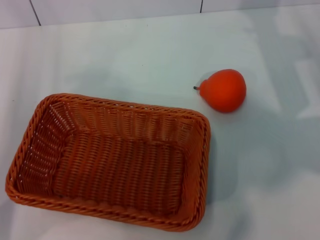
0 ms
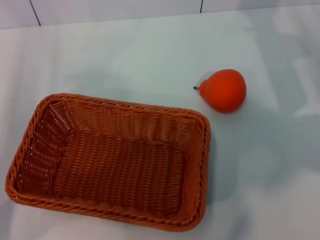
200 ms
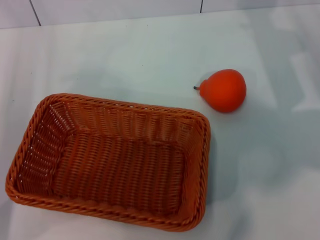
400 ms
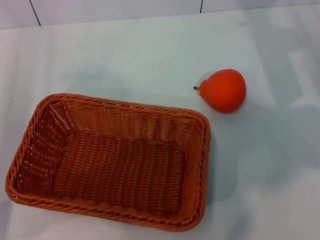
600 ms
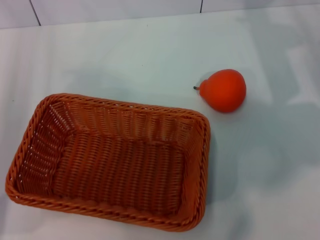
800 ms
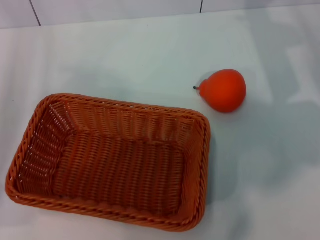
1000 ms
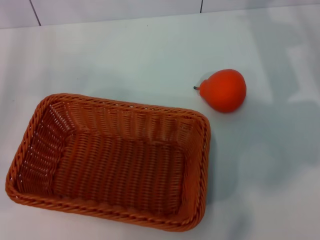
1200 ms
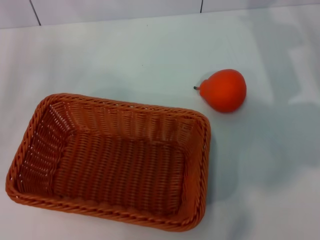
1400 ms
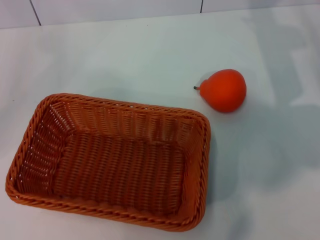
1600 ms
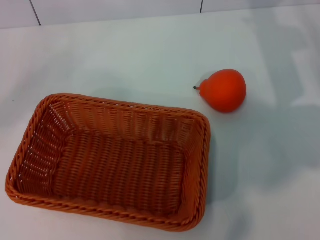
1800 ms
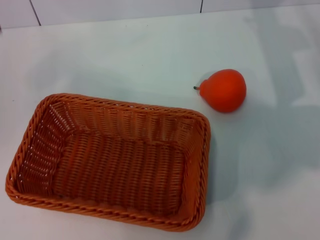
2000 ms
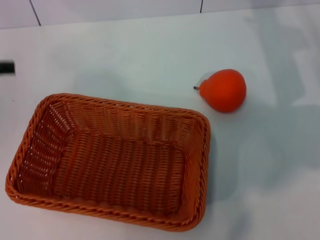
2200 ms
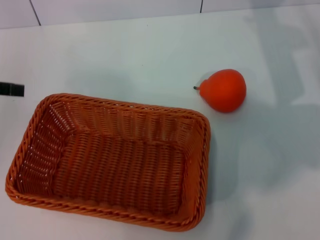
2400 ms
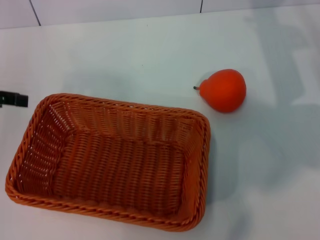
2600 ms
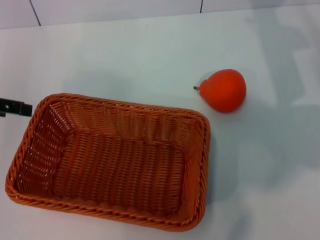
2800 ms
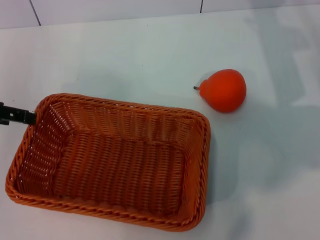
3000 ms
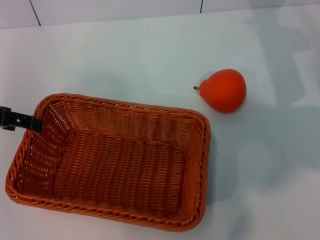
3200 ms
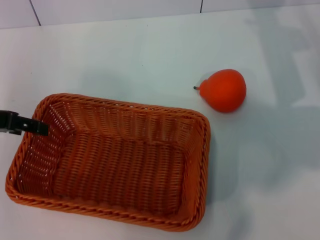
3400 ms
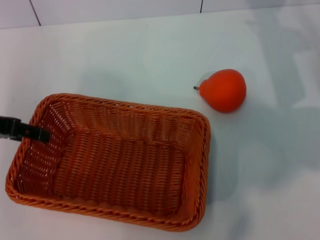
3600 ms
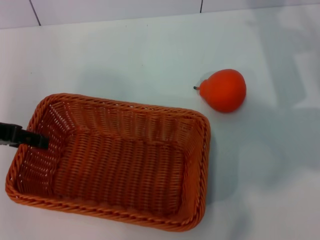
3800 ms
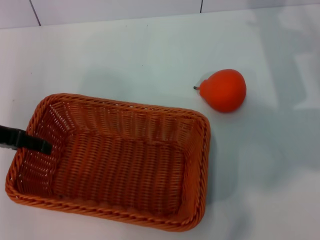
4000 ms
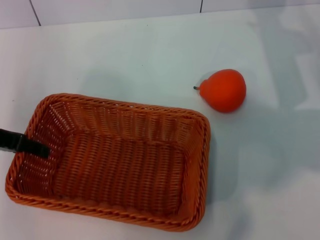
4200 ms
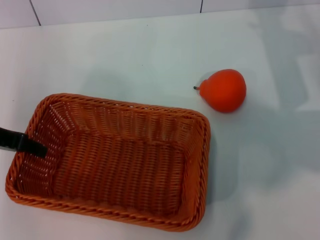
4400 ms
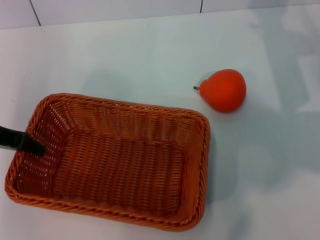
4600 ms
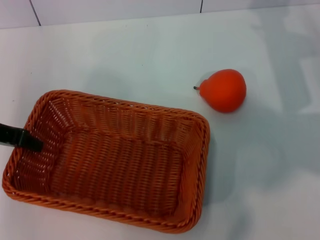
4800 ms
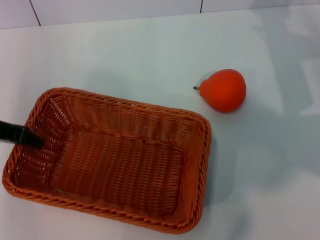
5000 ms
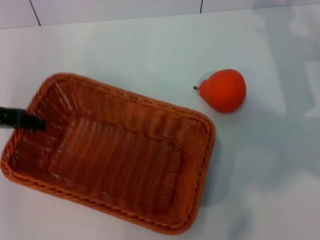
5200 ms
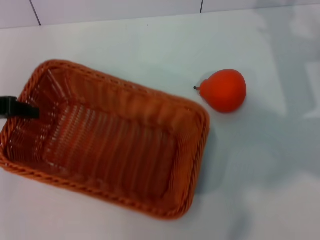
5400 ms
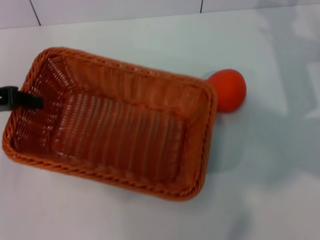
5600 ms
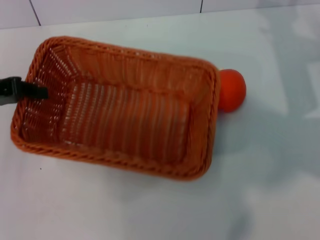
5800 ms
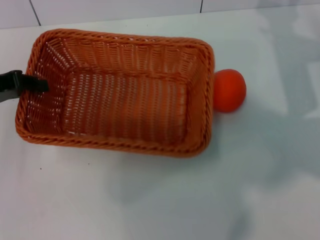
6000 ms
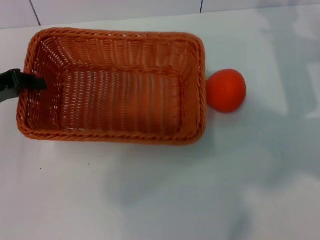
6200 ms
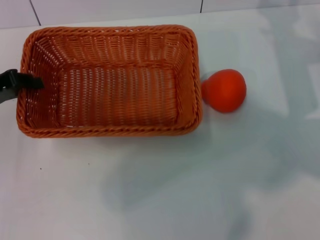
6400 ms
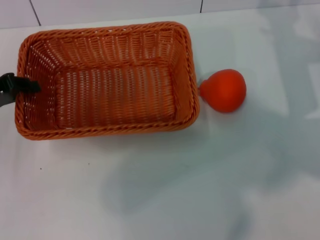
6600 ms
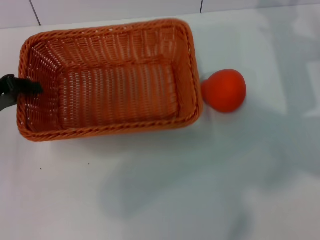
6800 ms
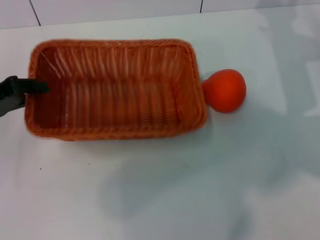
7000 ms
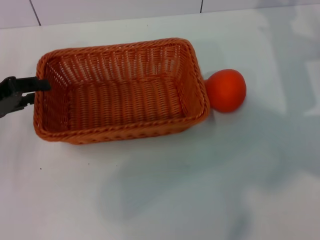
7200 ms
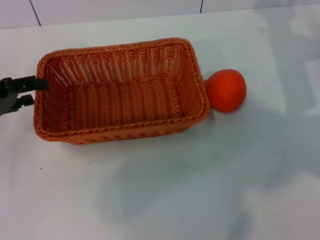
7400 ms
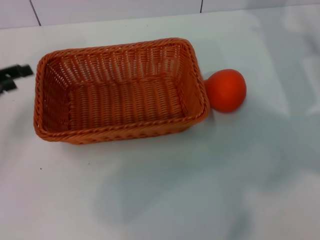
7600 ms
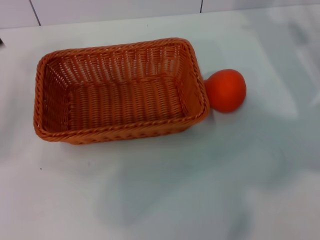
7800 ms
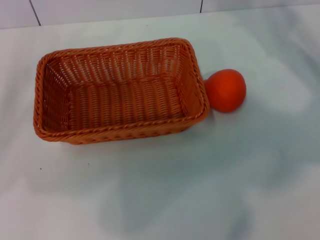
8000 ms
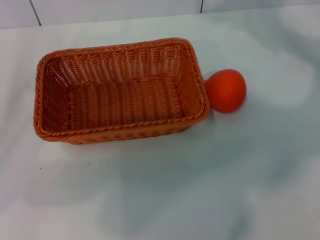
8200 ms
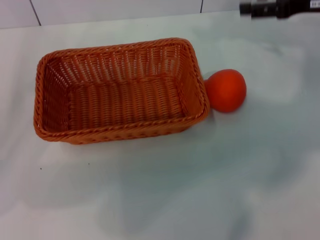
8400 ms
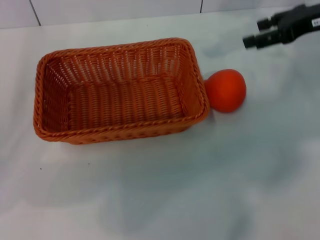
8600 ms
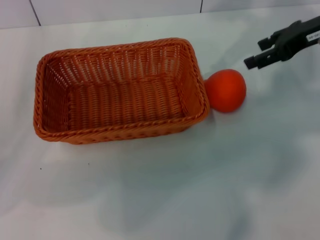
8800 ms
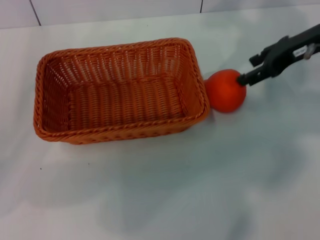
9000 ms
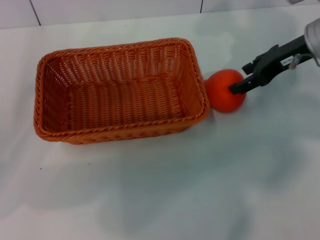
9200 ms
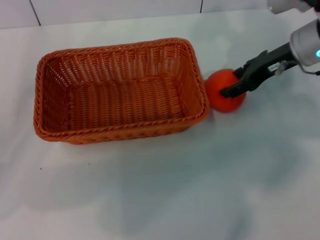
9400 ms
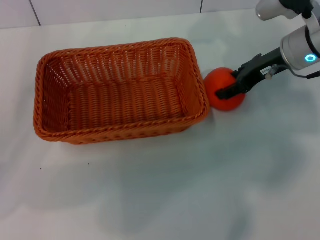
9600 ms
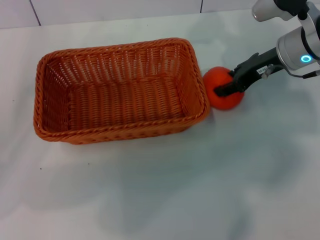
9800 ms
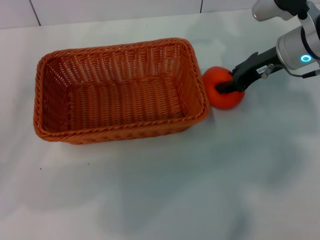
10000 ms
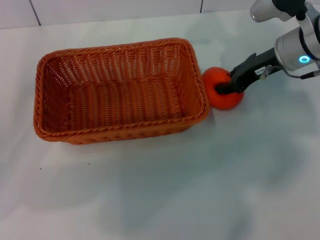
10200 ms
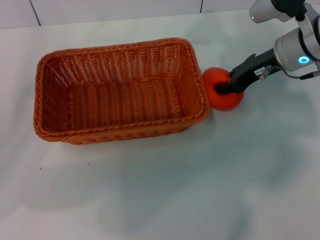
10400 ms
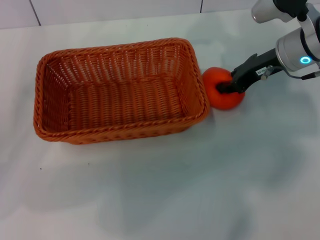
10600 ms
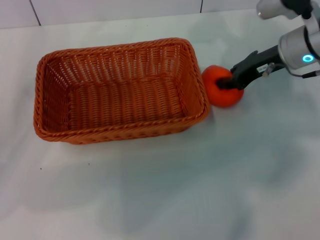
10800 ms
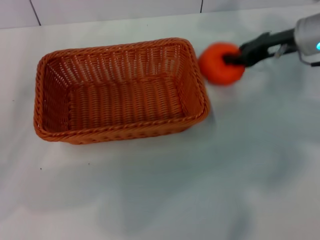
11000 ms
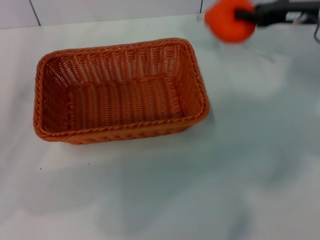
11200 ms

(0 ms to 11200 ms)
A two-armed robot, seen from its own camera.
Task of the whole recording: the left gripper pick up the yellow basket and place it horizontally in the middle of the table, the right gripper pick up the orange and place it into the yellow basket.
Step, 0 ms - 5400 ms: Pick up the light basket with the left gripper.
Step, 5800 ms - 7400 ms: Place the light basket in the center of view with the left gripper.
Step, 7800 ms - 11000 ms: Pick up the orange with the right gripper.
0 ms - 1600 ms: The left gripper moves to the left, upward and forward, some 15 cm.
1600 ms - 3200 ms: The left gripper travels to the right by approximately 5 cm.
3200 ms - 4800 ms: The left gripper closes its fingers.
6400 ms - 8000 ms: The right gripper moves upward, approximately 5 cm, while the left gripper changes place by some 5 cm, and opens.
8000 ms - 9600 ms: The right gripper travels to the left by about 10 cm.
9600 ms - 11200 ms: The right gripper goes about 5 cm to the right, and closes up.

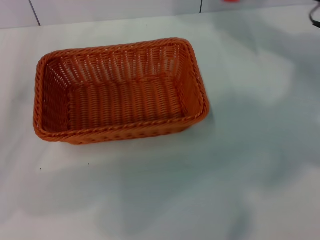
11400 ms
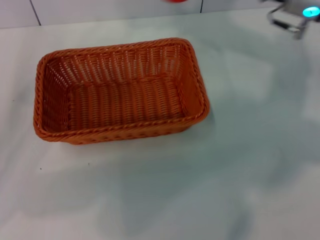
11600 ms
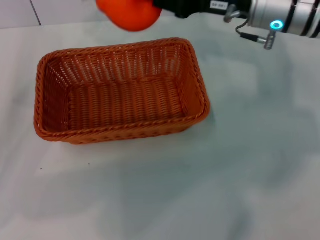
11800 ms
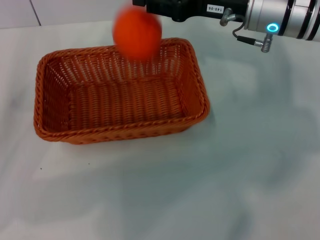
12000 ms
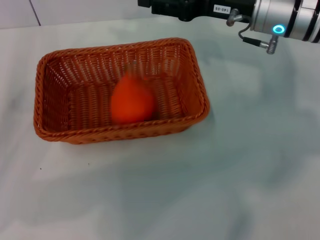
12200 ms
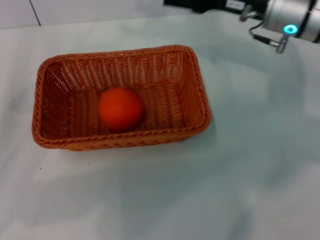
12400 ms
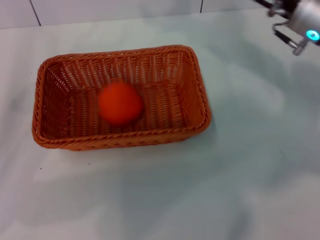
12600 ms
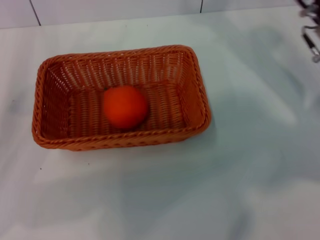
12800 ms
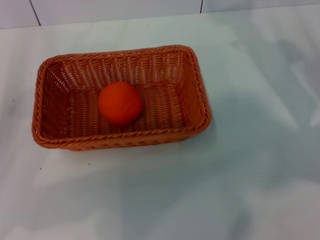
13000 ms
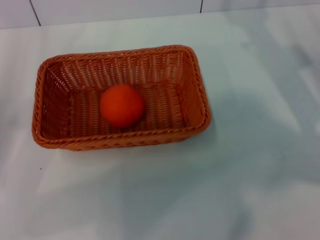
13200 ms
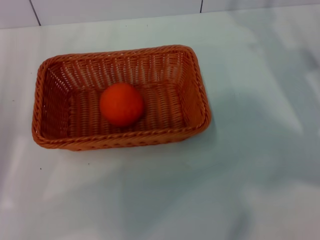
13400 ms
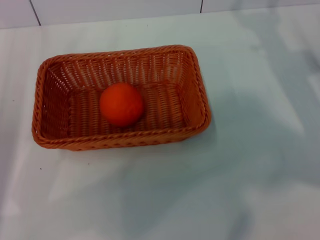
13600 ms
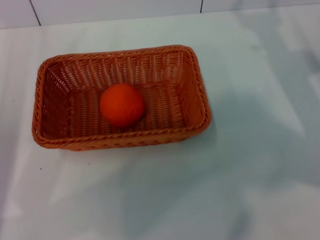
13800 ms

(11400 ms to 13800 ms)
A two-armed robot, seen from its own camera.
Task of the whole recording: the left gripper pick up the yellow basket and place it horizontally in the middle of the table, the right gripper pick up the orange and place it into the yellow basket.
Step, 11400 ms - 12000 ms: Place the orange into the light basket with the right gripper.
11400 ms - 12600 ms: The right gripper opens its fingers.
12600 ms - 13800 ms: The right gripper is displaced to the right and downward by about 10 cm.

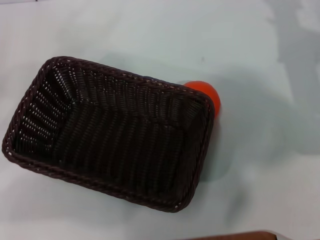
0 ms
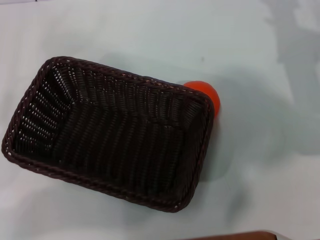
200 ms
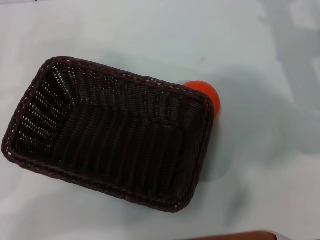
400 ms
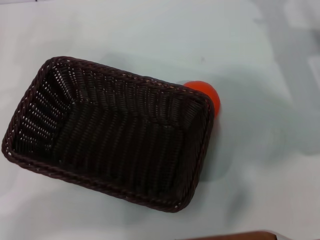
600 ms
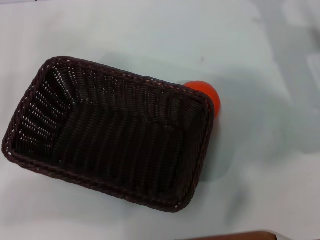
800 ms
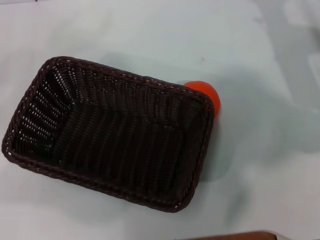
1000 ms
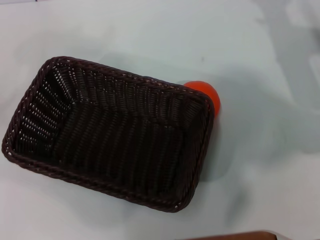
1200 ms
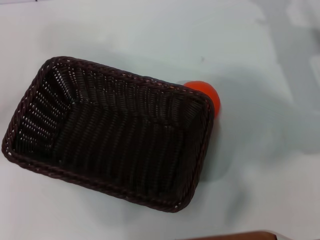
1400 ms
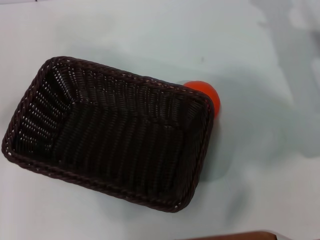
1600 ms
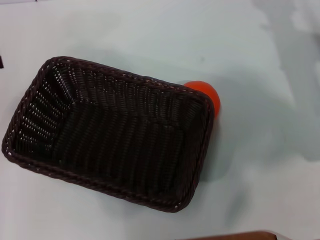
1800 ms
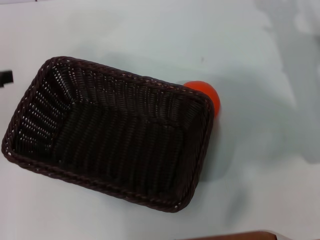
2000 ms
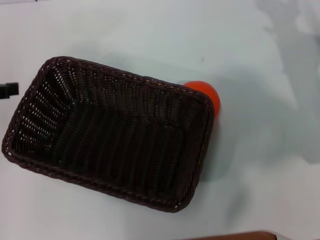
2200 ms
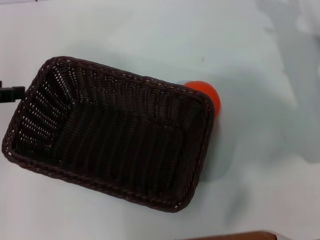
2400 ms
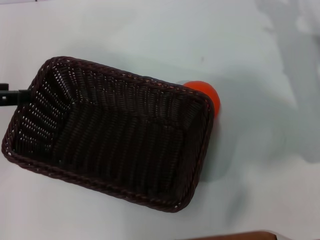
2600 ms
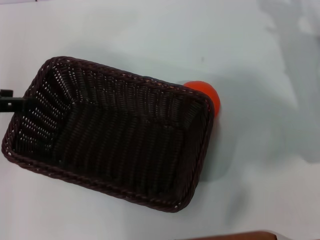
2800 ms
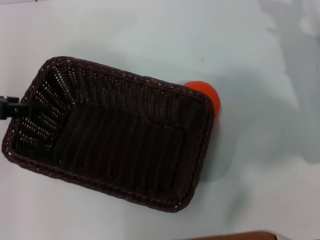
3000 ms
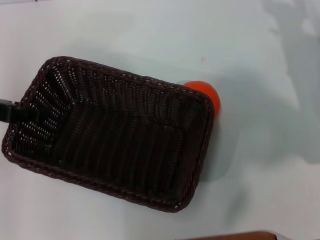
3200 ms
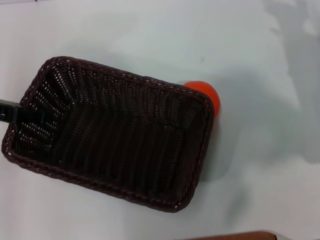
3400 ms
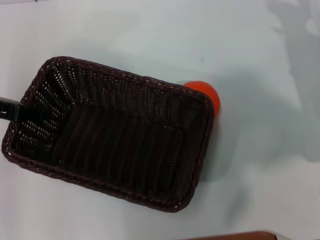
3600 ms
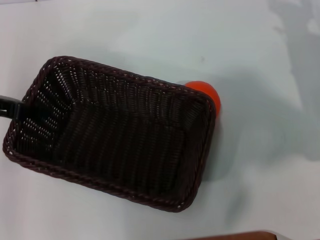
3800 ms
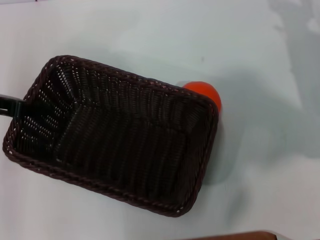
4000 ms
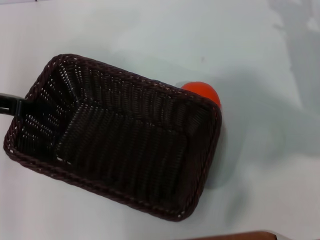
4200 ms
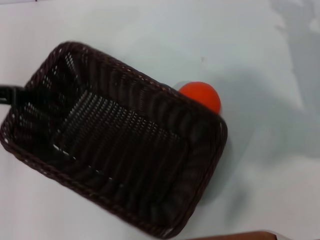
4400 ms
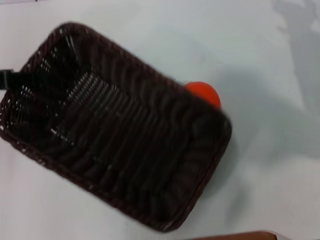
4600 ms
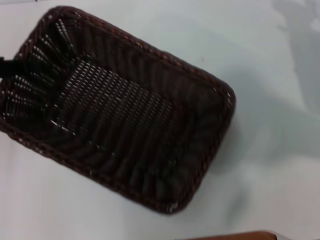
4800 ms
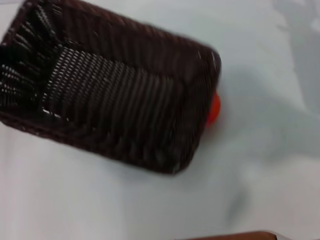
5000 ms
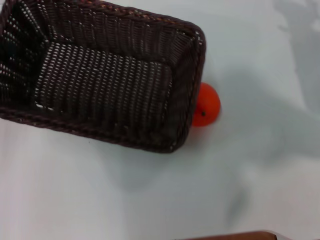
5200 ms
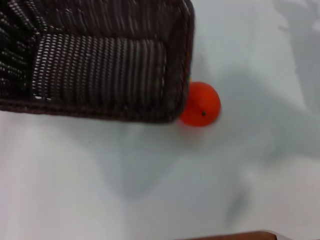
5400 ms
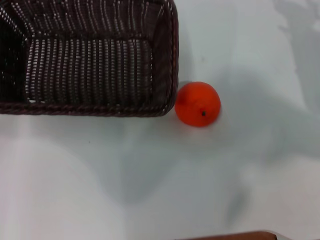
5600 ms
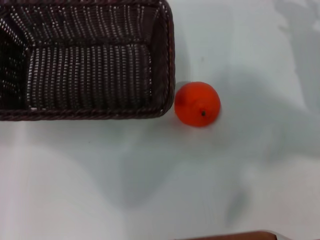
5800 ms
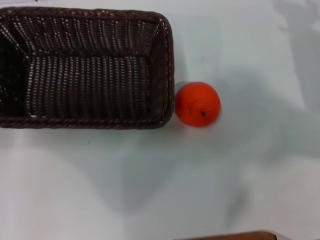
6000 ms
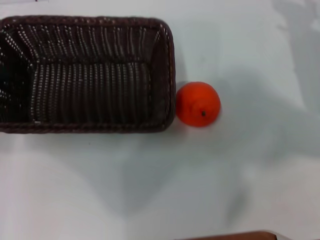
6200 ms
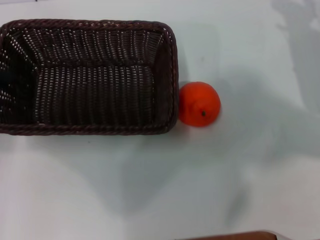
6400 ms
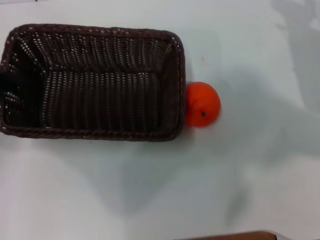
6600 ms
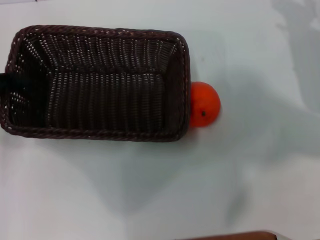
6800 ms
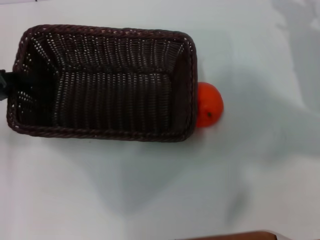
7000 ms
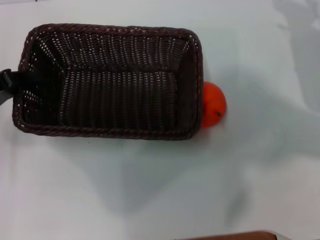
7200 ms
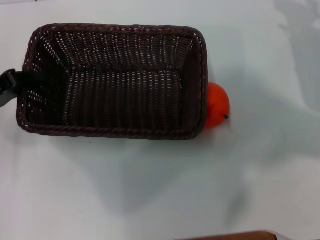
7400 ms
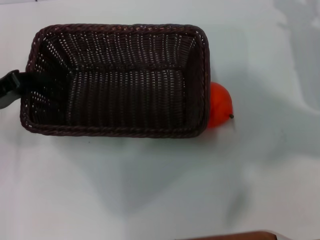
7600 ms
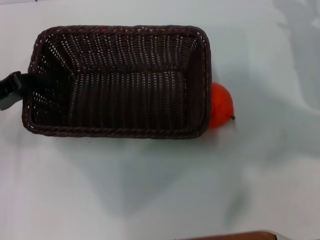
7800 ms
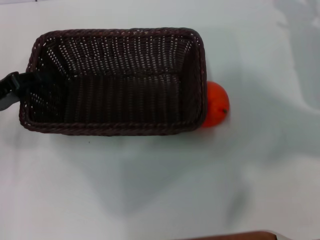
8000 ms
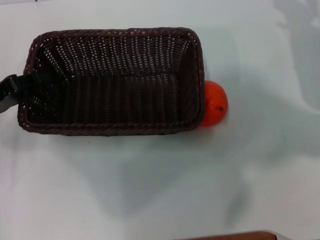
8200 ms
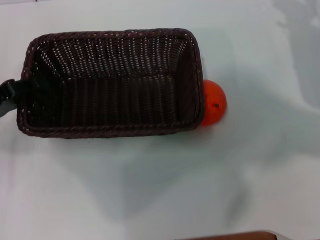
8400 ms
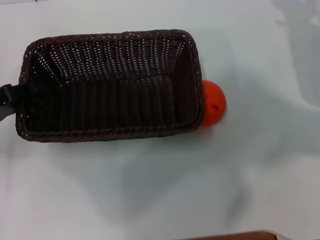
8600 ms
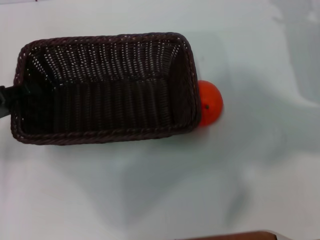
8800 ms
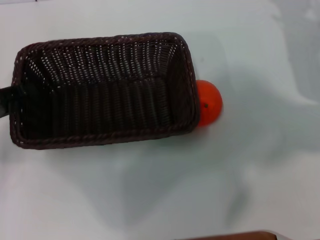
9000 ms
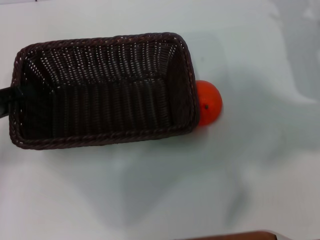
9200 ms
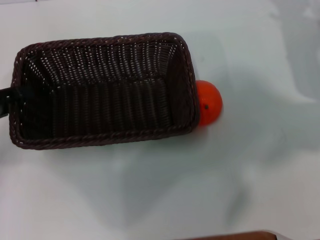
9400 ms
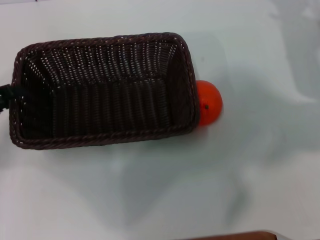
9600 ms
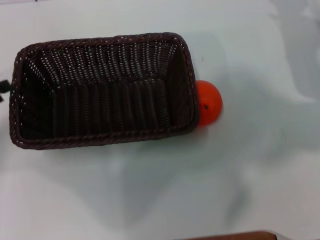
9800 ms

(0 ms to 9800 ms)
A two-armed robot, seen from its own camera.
Task of the whole recording: the left gripper pick up the black basket and place it horizontally in the middle of the table, the right gripper pick up the orange and place it into the black basket.
Step, 0 ms - 4000 ms: Pick up the dark basket with the left gripper.
Step, 4400 ms - 9600 ms: Place the dark basket in the center of view with the left gripper.
1400 ms - 2800 ms: The left gripper heads to the right, covering roughly 5 cm.
2800 ms - 4200 ms: The left gripper closes up.
4200 ms - 5600 ms: The left gripper heads to the left, covering about 5 cm.
5600 ms - 7000 ms: The left gripper moves about 5 cm.
7000 ms - 8400 ms: The left gripper opens.
8400 ms - 9800 ms: The left gripper shifts by roughly 5 cm.
